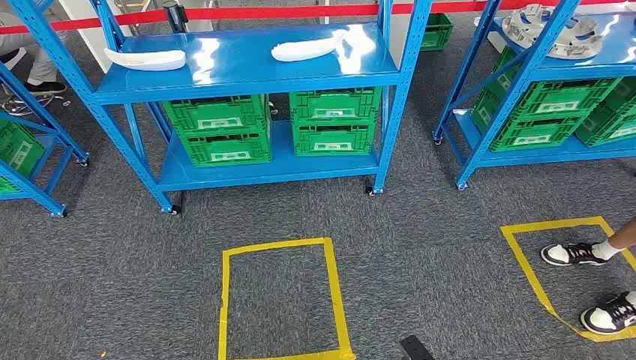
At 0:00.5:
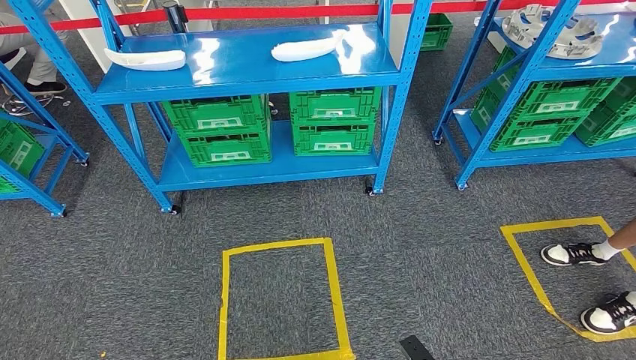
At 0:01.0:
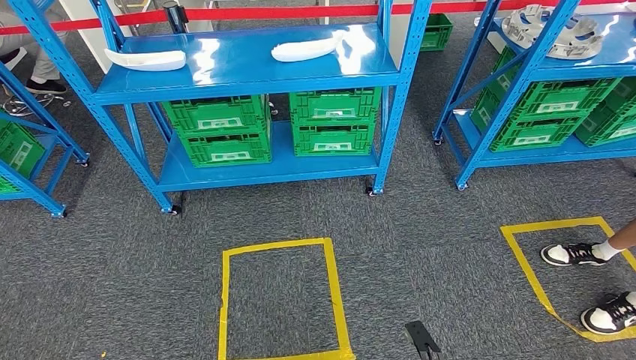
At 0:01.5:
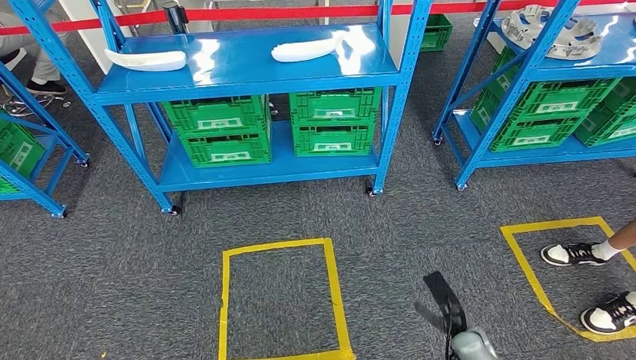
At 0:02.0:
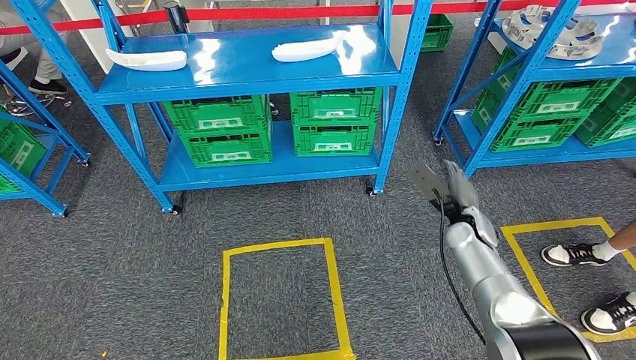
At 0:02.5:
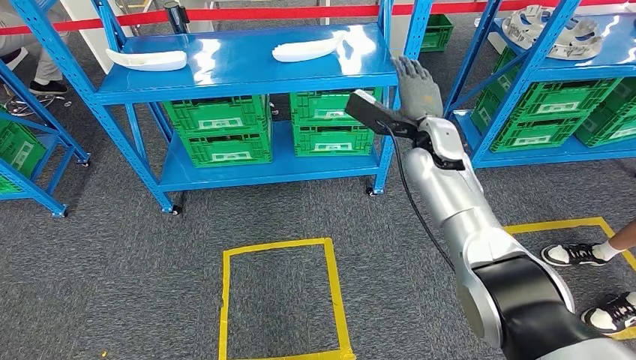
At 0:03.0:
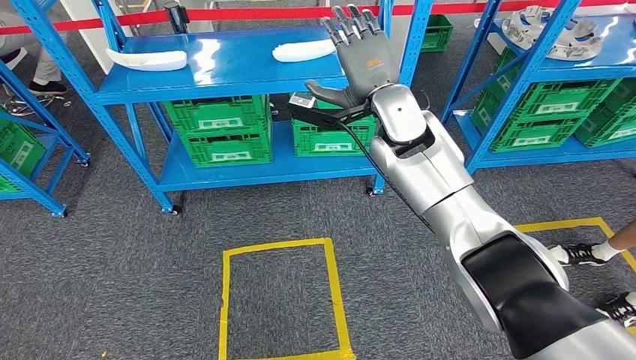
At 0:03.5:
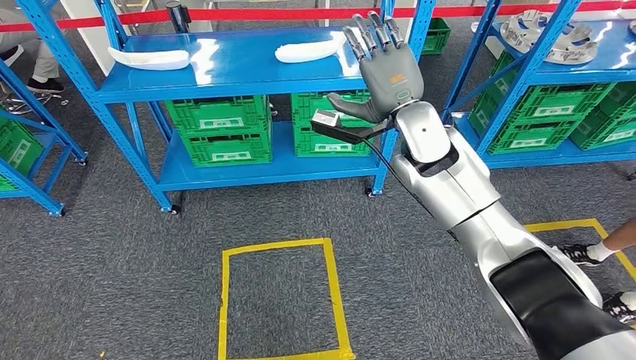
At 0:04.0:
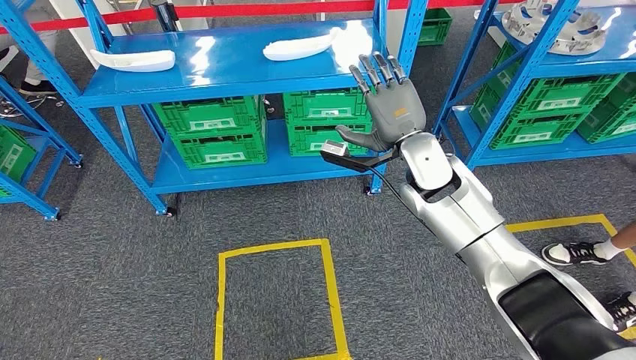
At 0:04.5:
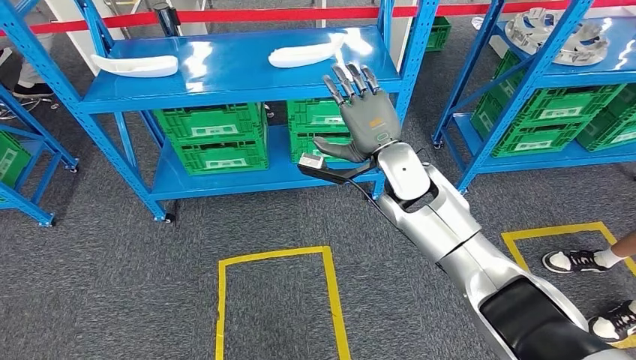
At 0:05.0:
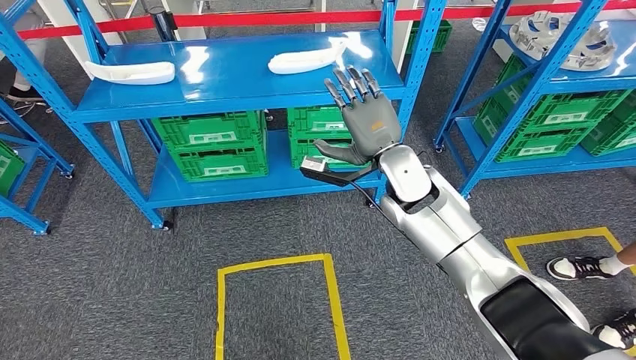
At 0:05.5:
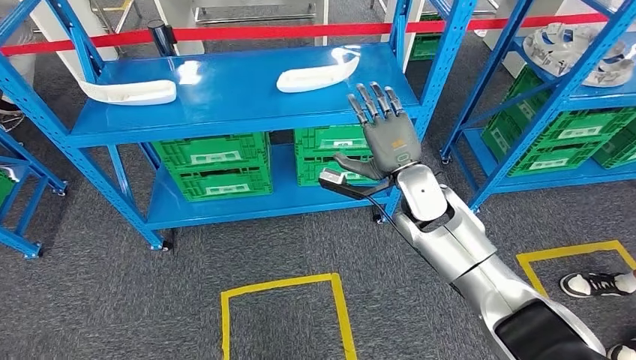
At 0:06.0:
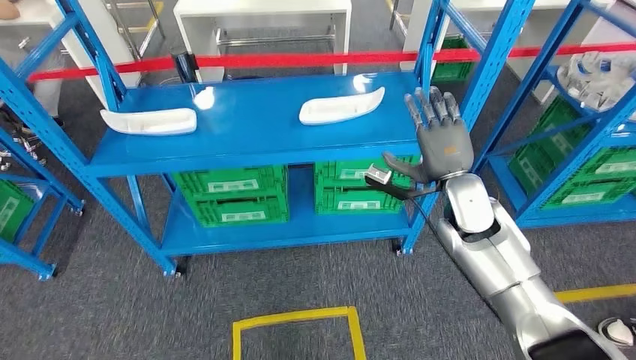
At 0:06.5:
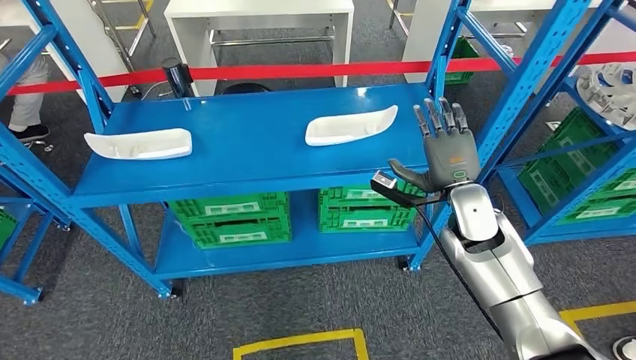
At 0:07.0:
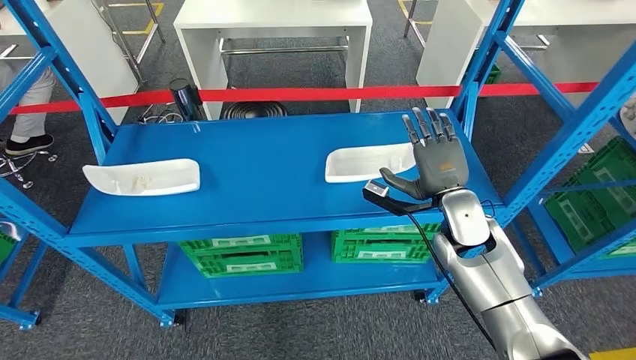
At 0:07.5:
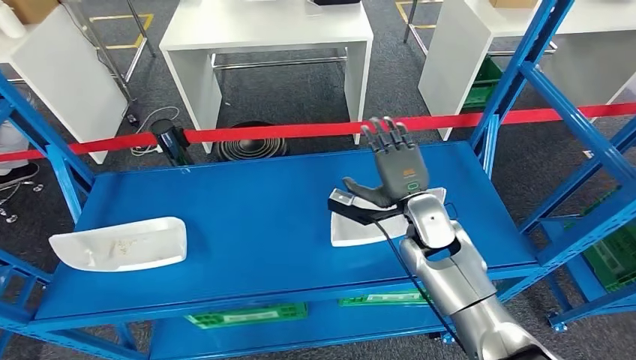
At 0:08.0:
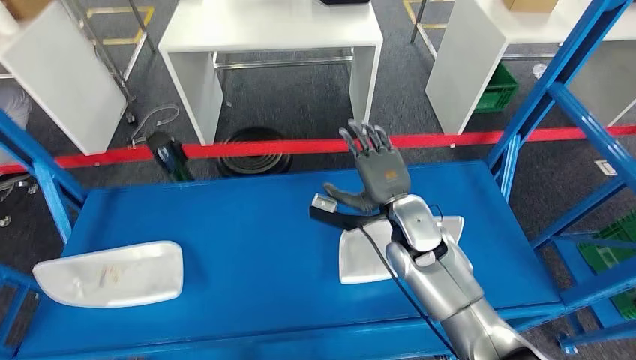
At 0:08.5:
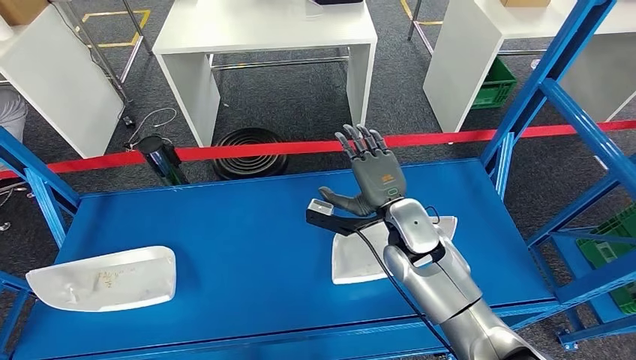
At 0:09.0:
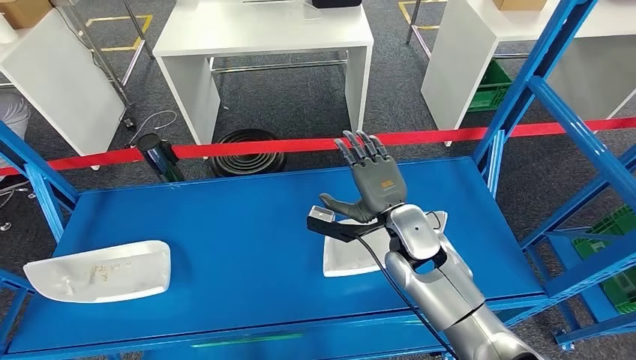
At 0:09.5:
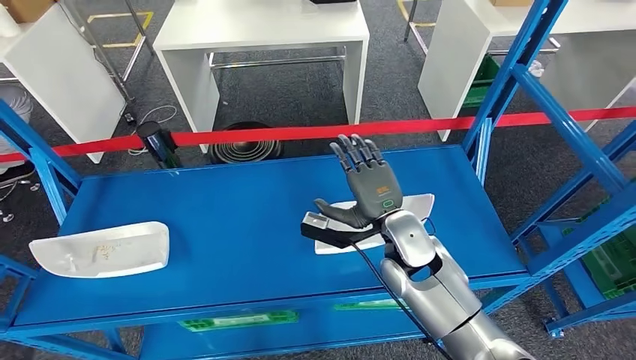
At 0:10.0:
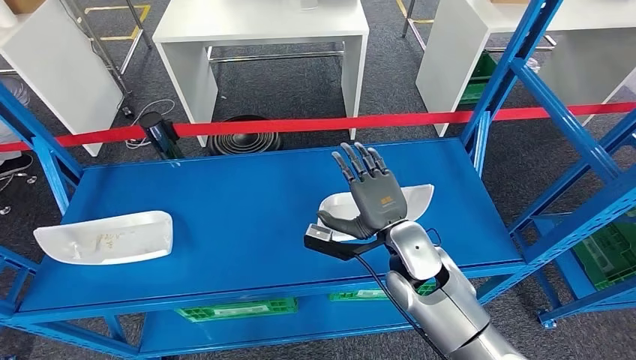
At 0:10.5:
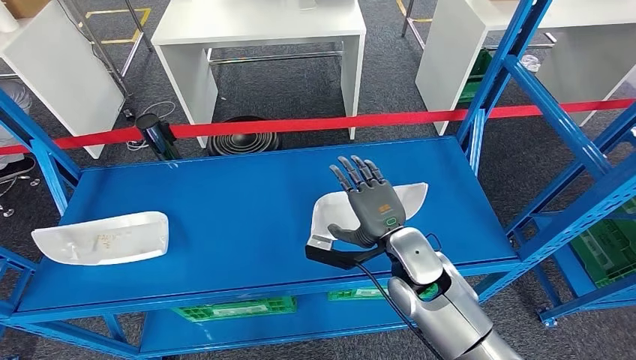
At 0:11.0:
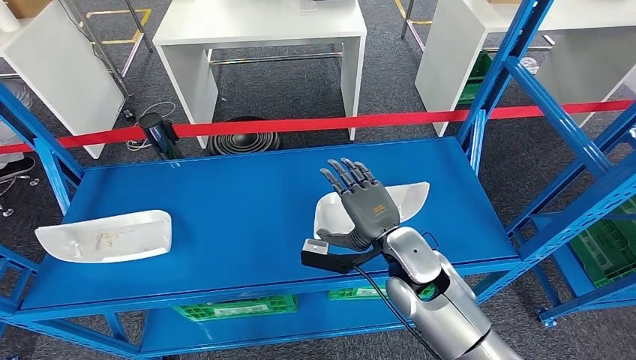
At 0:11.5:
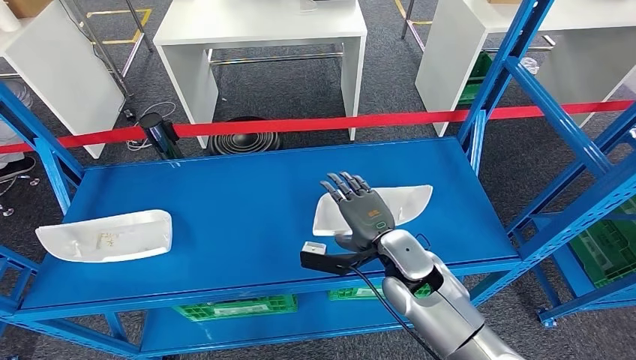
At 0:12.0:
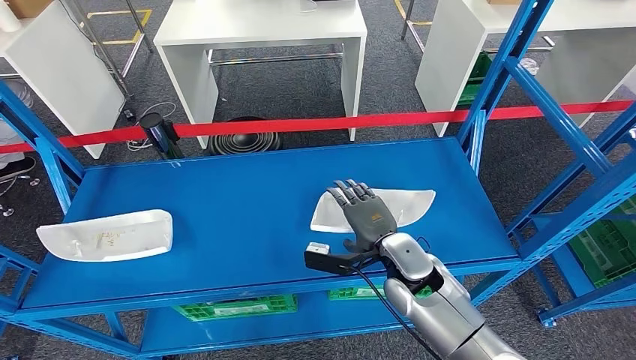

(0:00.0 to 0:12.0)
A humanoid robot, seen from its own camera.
0:10.0 - 0:12.0: The hands move only a little.

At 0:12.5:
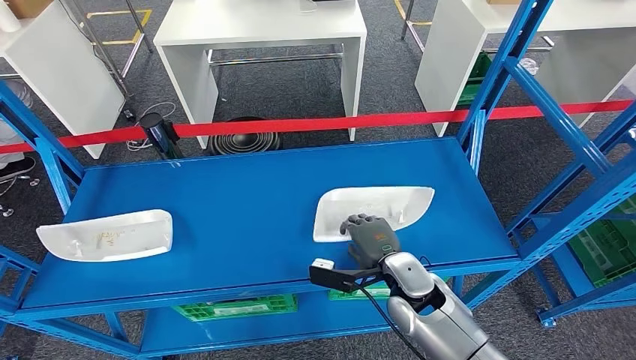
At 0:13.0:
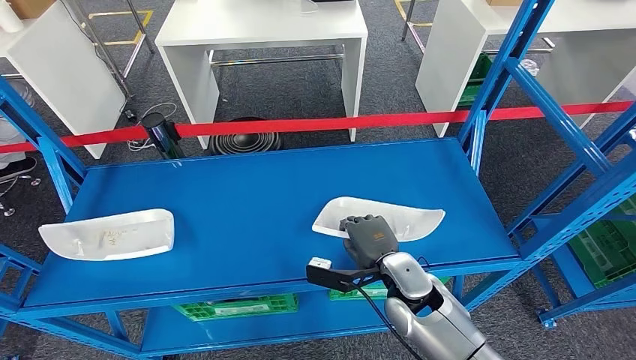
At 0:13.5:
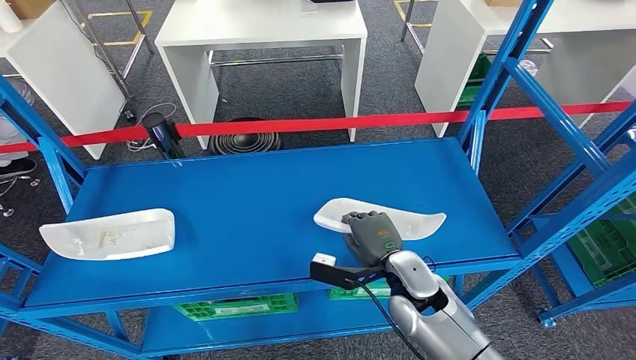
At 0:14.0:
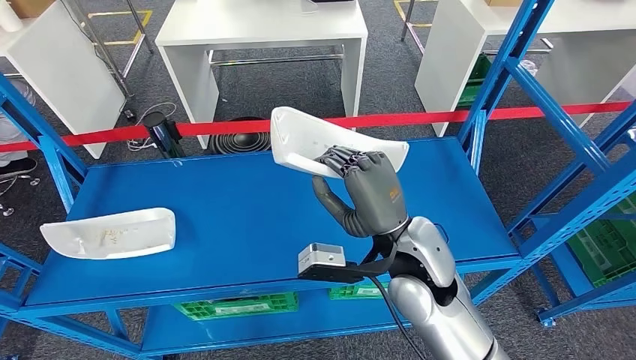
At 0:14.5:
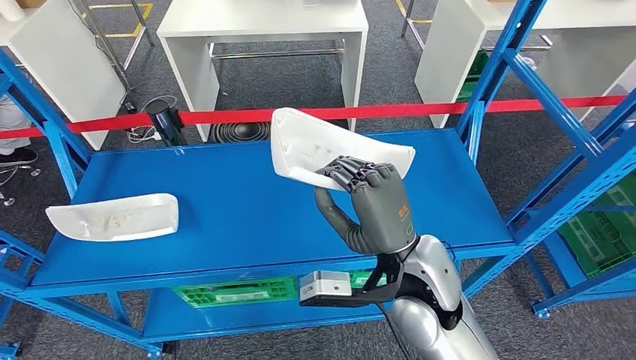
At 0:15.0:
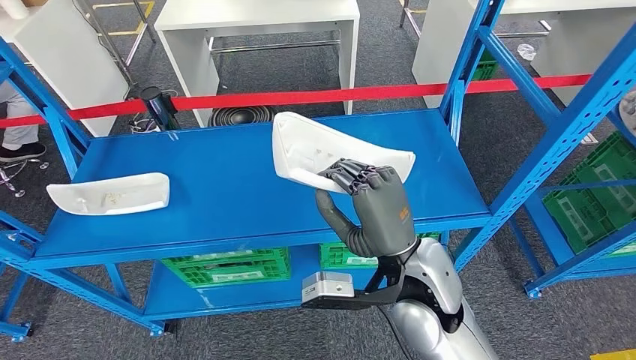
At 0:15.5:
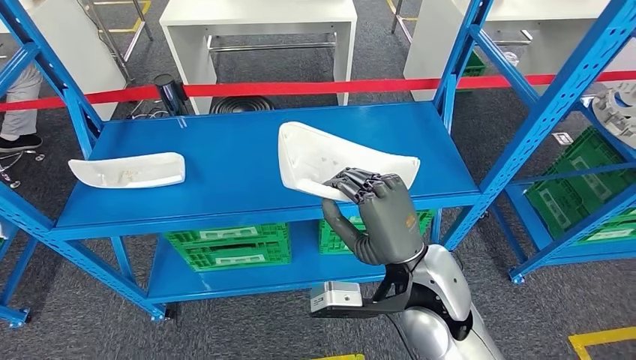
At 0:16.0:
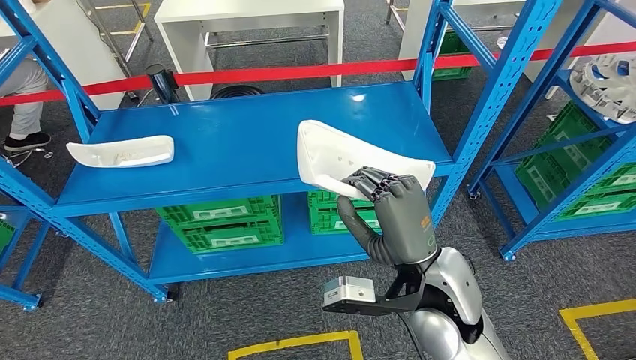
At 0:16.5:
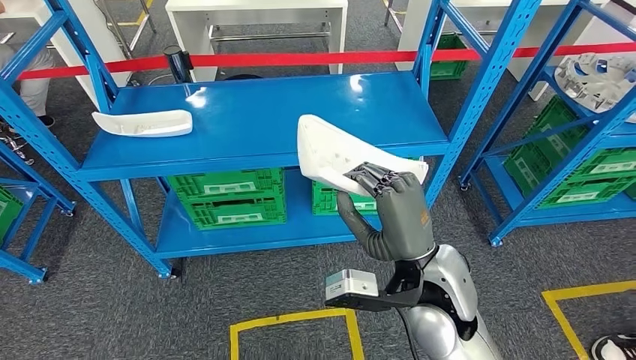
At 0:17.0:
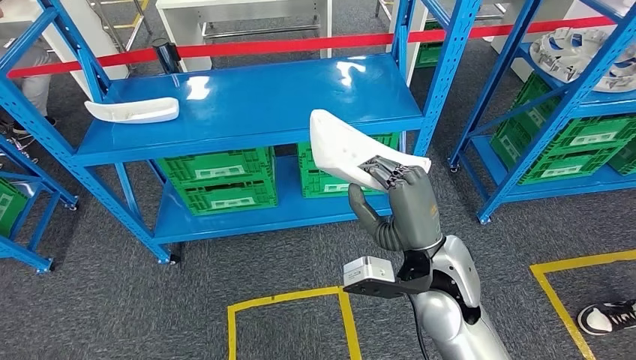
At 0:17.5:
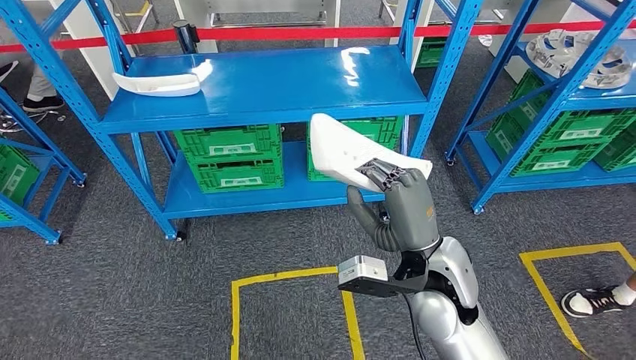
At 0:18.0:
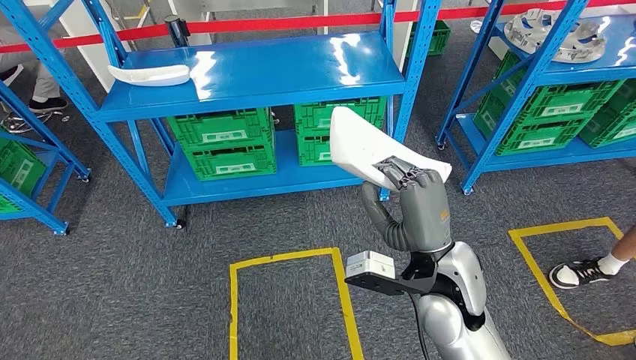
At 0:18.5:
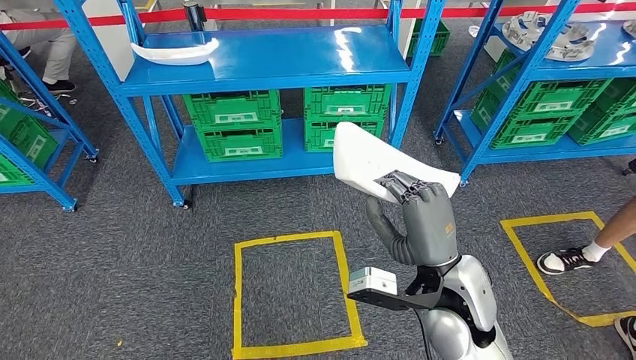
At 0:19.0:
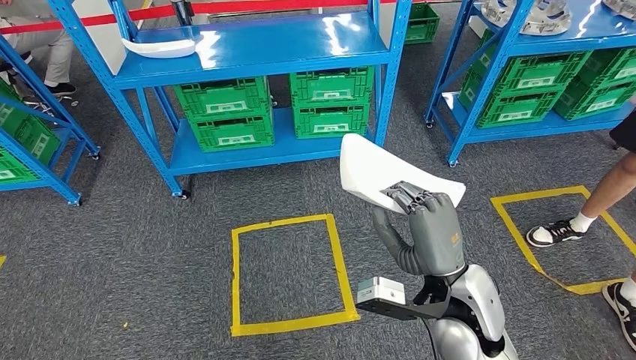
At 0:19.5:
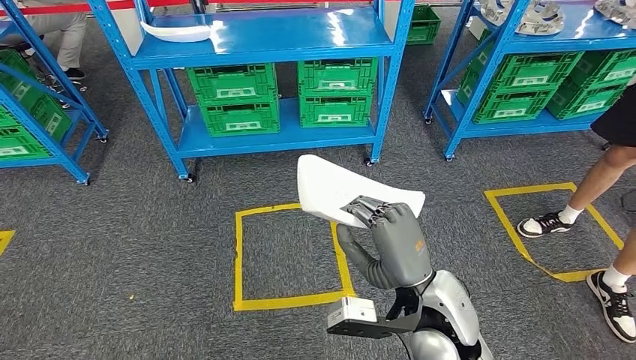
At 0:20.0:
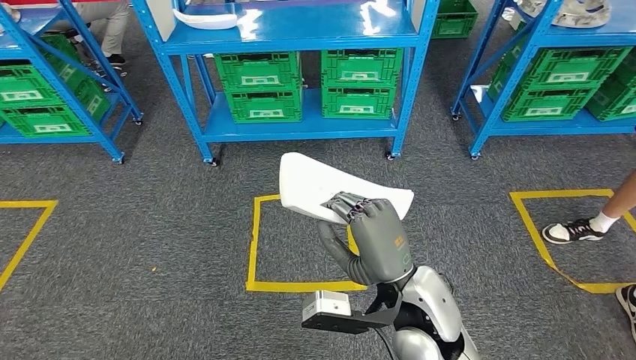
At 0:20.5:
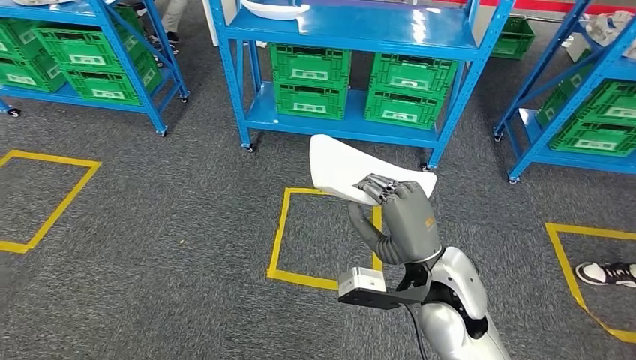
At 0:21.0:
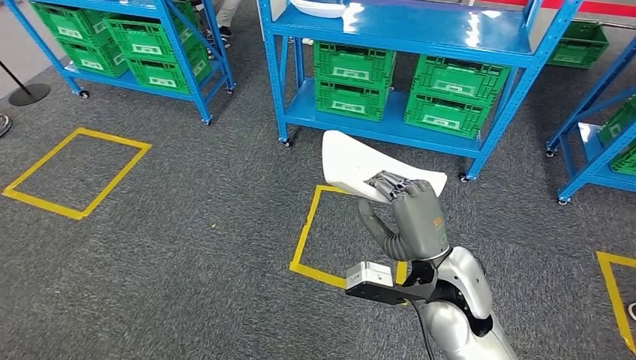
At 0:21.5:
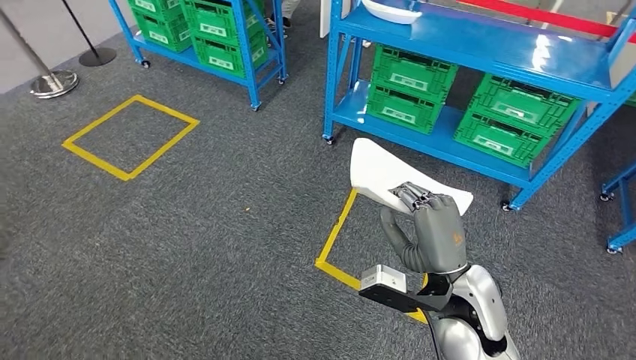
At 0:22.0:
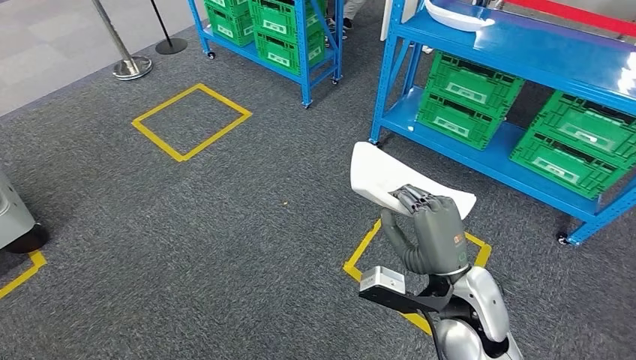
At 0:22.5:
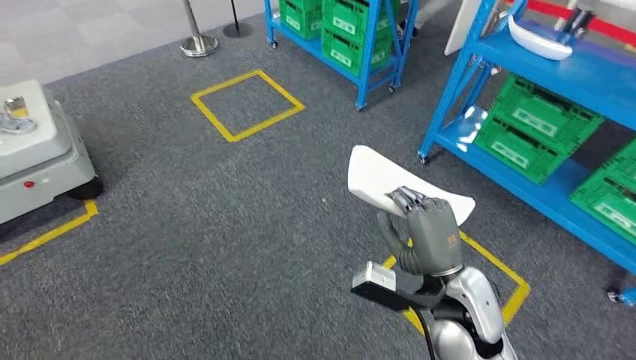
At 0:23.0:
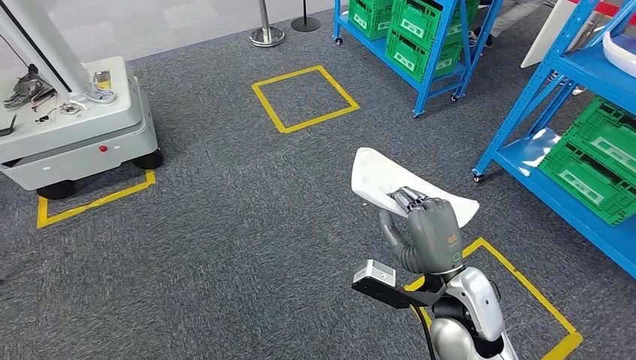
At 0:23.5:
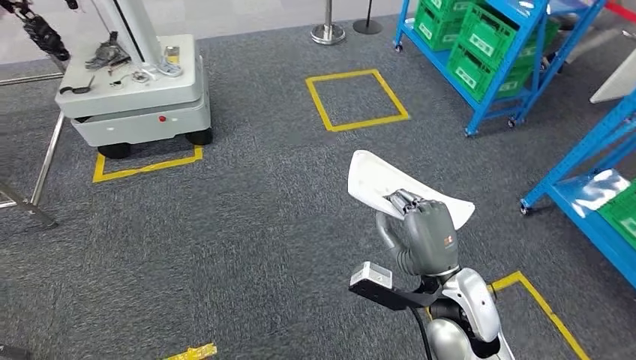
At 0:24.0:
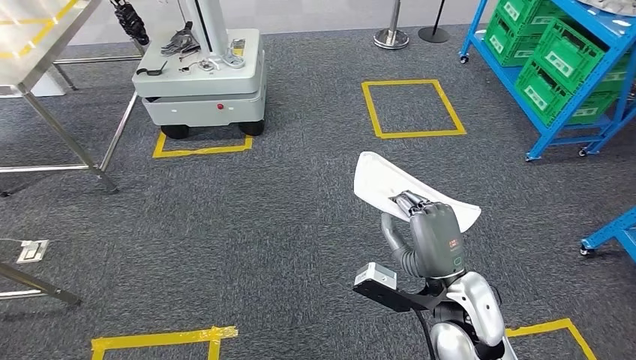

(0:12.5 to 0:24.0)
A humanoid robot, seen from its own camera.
Step, 0:12.5 - 0:15.0: Pick up the small parts from the shelf.
